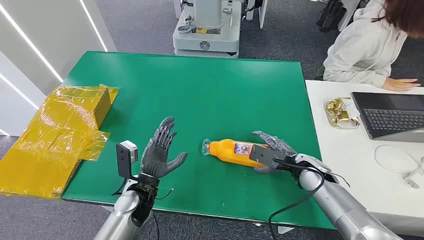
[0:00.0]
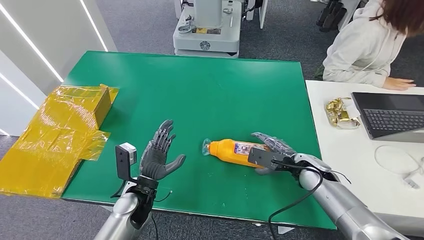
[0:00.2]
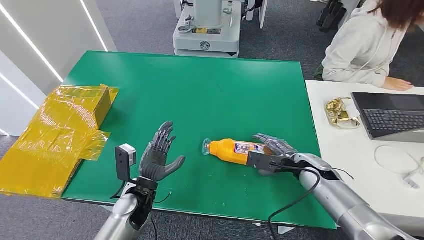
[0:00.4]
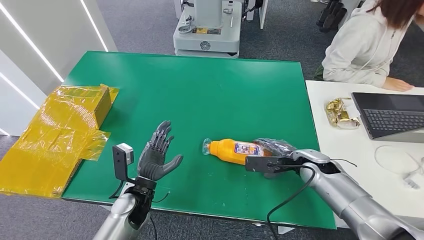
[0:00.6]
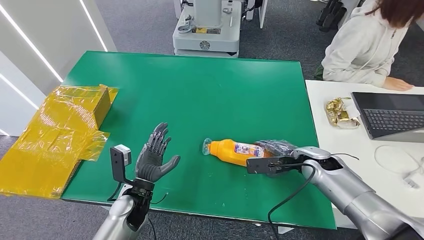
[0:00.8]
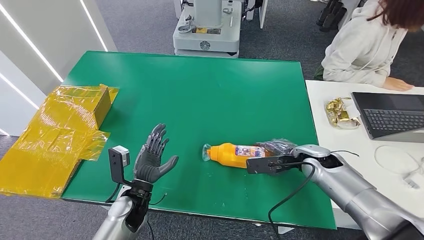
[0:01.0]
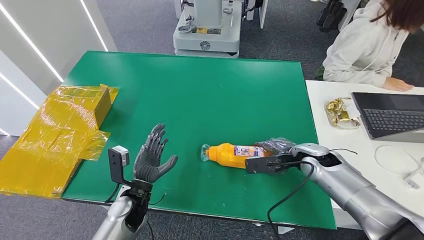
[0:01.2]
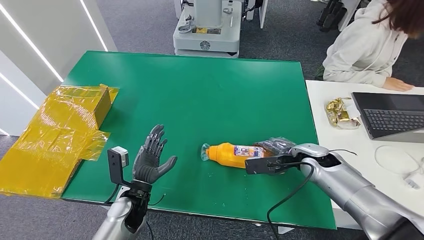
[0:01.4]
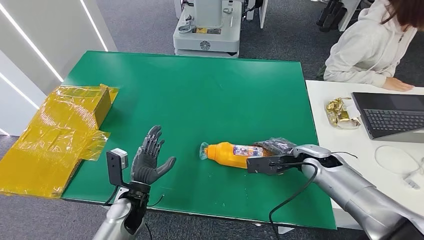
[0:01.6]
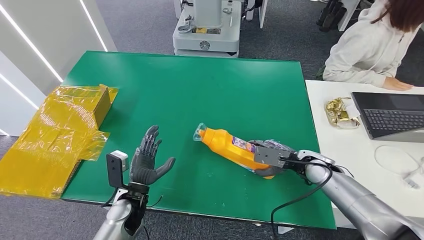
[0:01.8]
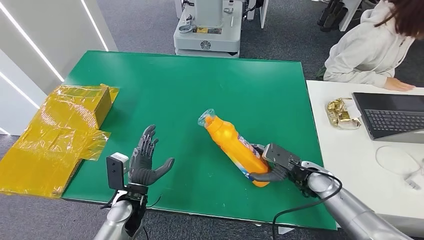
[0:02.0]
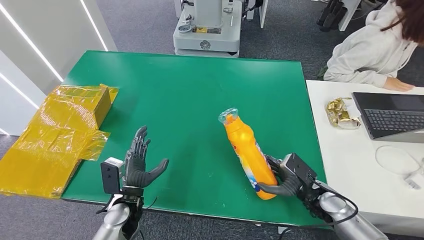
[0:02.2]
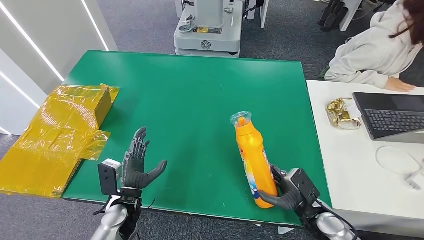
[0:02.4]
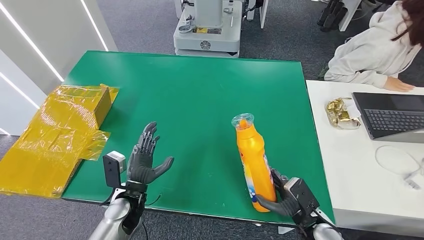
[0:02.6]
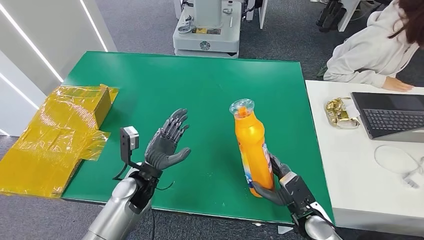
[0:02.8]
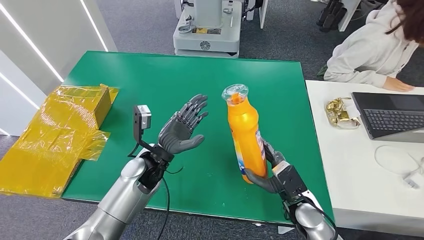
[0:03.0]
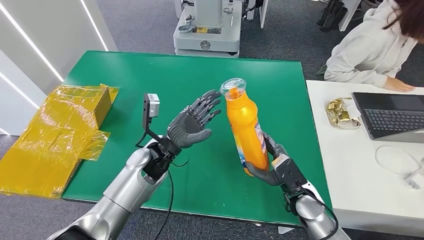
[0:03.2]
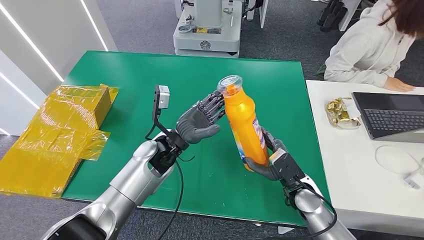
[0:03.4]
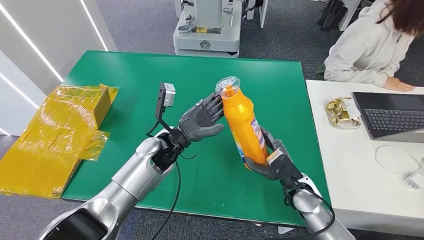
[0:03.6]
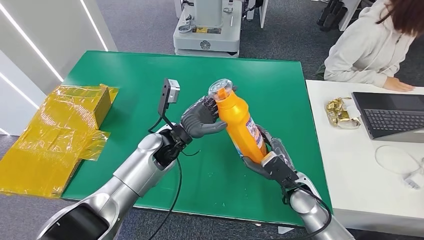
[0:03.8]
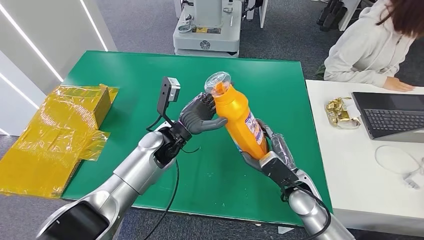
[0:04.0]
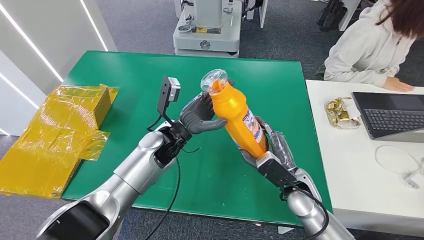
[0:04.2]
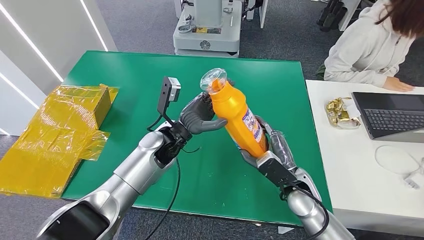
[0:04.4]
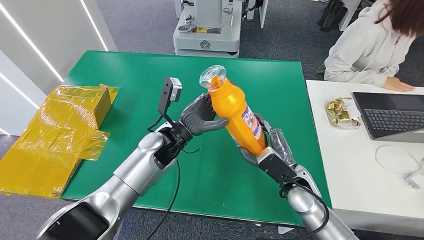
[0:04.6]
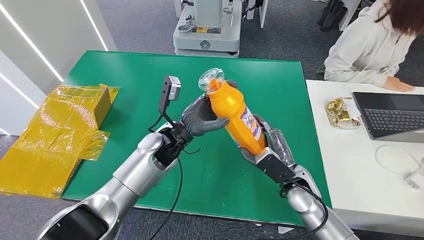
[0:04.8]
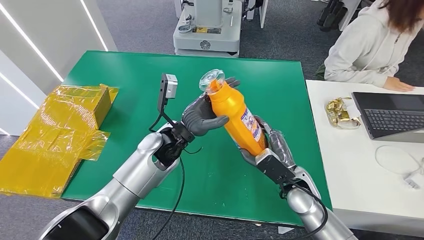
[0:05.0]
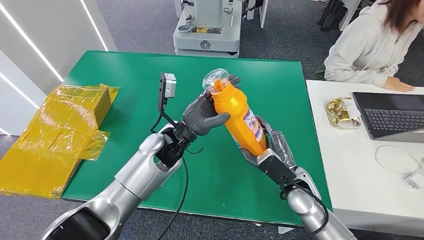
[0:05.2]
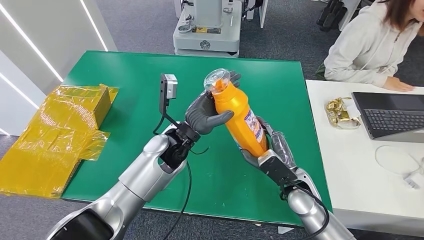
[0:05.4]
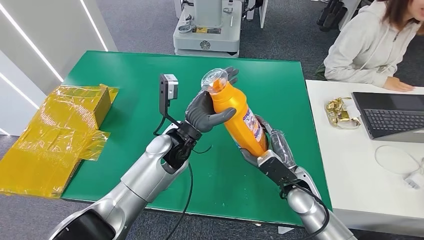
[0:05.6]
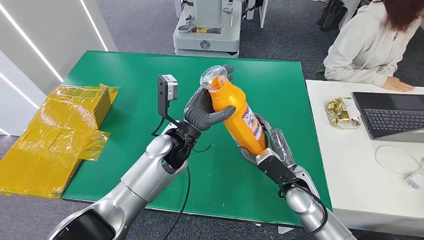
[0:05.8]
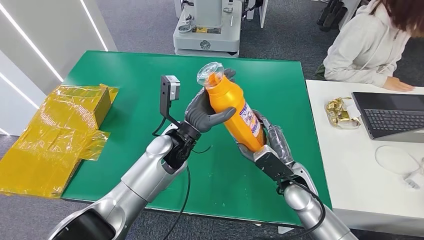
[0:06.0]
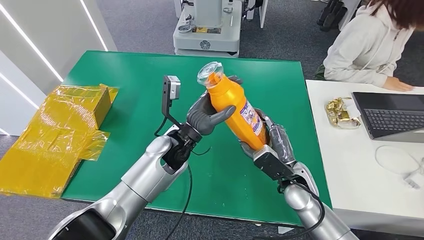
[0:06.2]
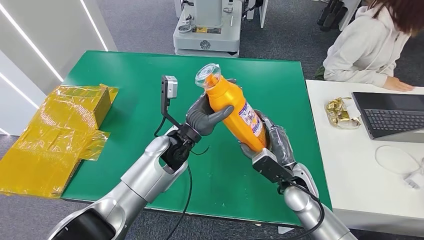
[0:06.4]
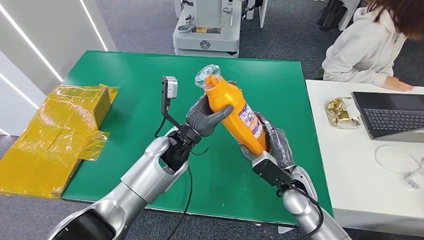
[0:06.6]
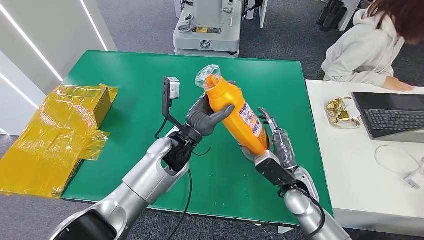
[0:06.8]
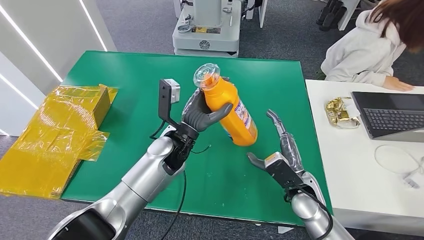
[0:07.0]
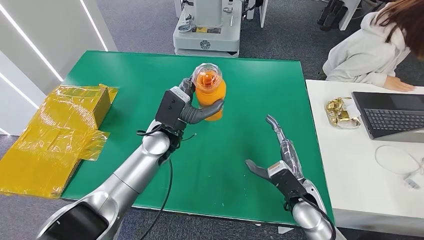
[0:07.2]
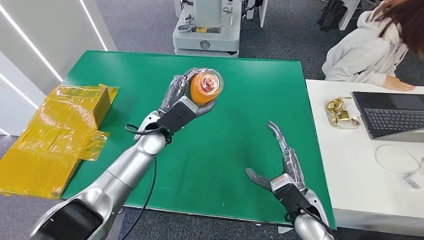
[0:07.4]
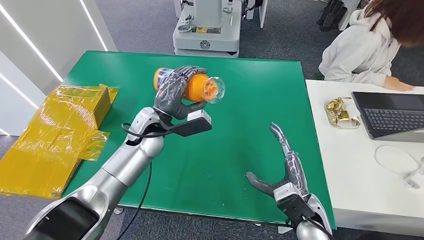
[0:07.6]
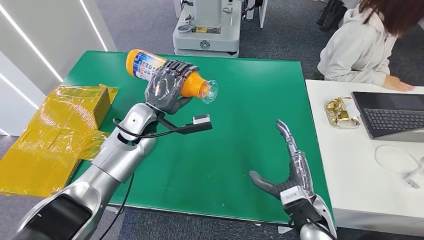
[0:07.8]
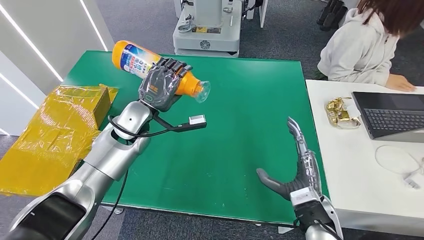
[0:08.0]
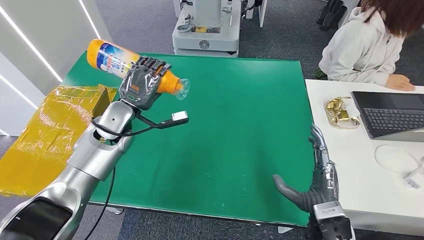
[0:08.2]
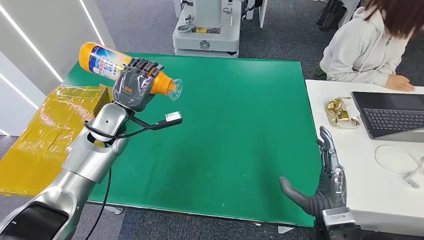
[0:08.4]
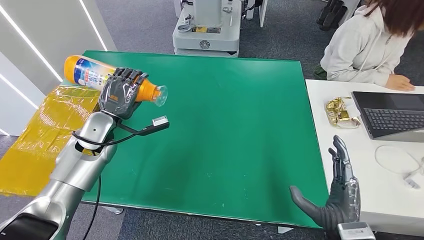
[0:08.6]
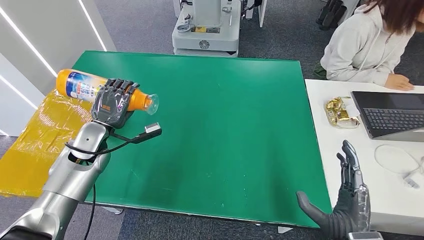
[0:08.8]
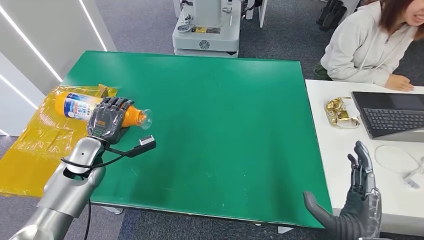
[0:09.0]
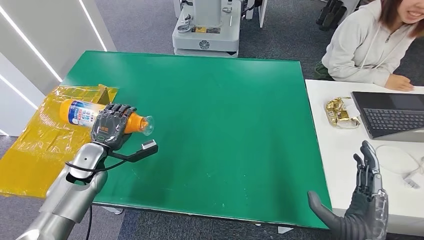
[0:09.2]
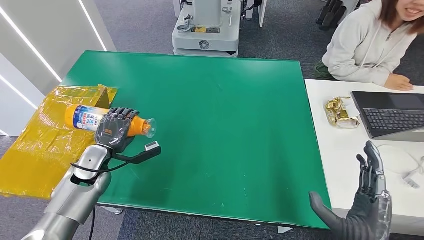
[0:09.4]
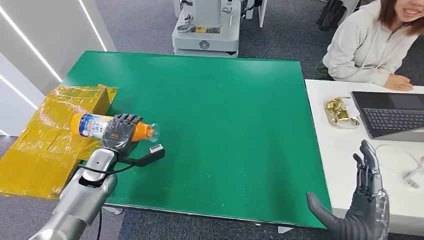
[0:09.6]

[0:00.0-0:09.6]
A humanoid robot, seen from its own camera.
Step, 0:00.0 to 0:03.6: Pick up the bottle from the table.
0:01.6 to 0:03.2: The left hand shifts some 15 cm upward, forward and to the right, while the right hand heads backward and downward, covering about 10 cm.
0:04.8 to 0:06.4: There are only small adjustments of the hands.

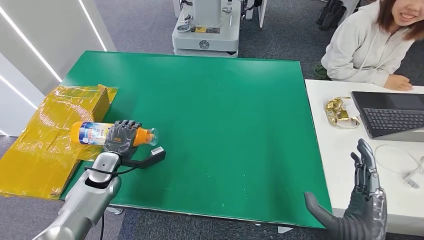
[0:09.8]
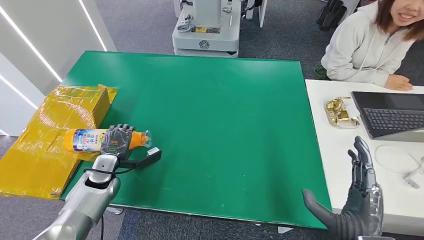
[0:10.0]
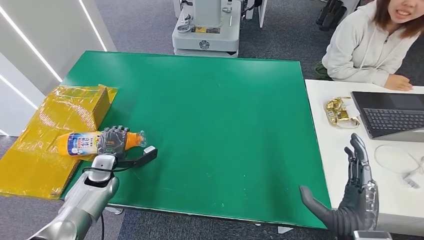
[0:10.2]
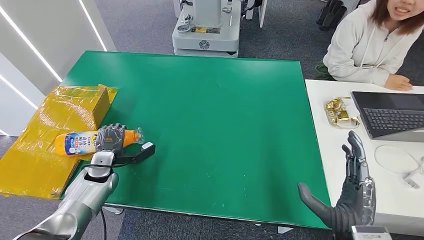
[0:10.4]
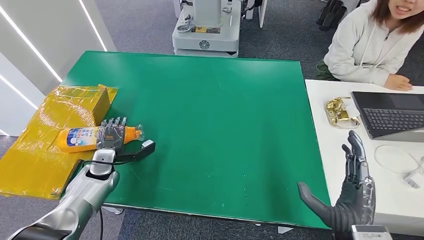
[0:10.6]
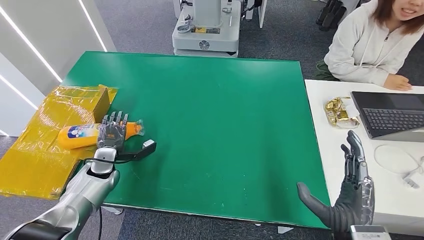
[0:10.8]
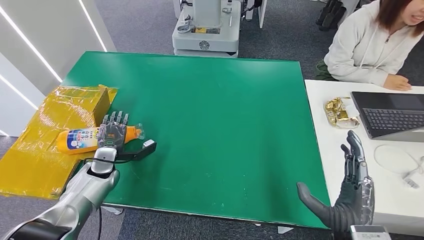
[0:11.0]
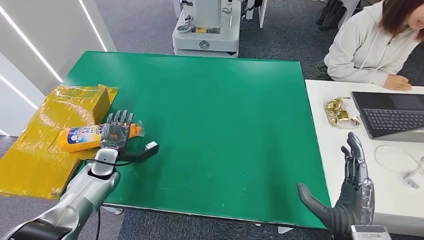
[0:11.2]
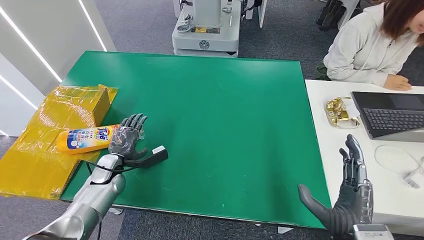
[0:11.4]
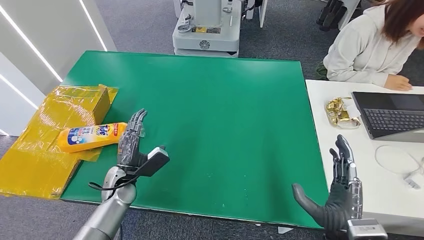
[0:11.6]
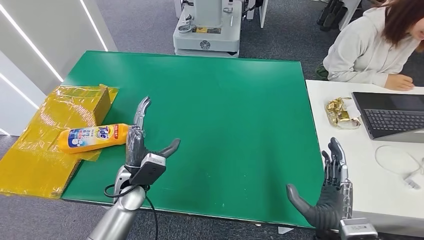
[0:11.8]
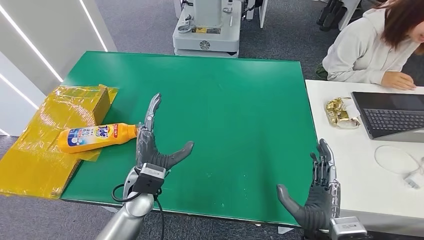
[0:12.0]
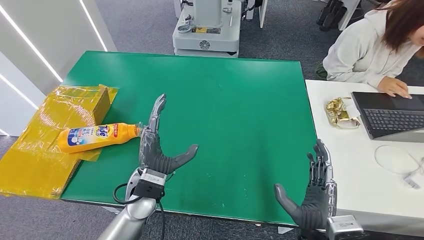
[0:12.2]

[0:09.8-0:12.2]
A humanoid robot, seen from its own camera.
Step, 0:09.8 to 0:12.2: Turn the bottle to the front side.
0:09.8 to 0:11.0: There are only small adjustments of the hands.
0:11.0 to 0:12.2: The left hand shifts about 25 cm to the right, backward and upward; the right hand ends up some 5 cm from where it was.
